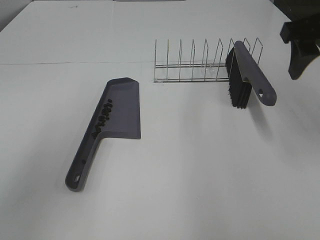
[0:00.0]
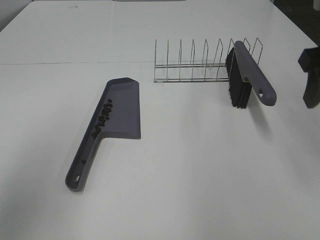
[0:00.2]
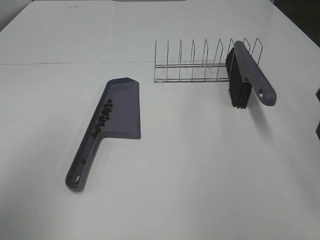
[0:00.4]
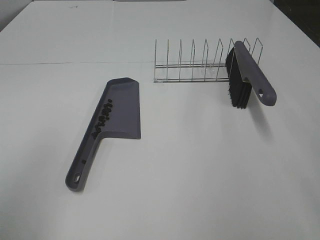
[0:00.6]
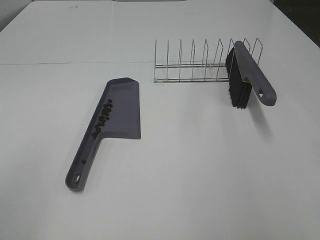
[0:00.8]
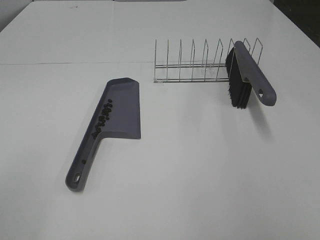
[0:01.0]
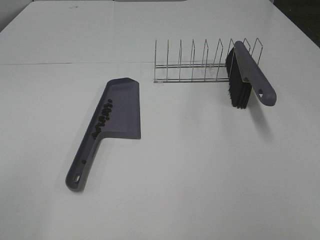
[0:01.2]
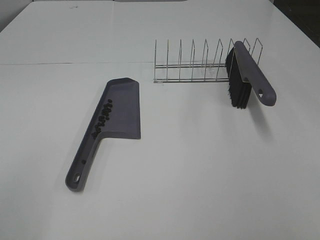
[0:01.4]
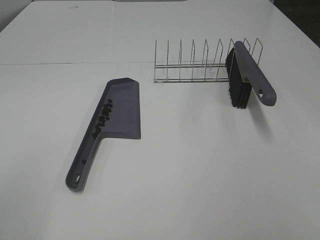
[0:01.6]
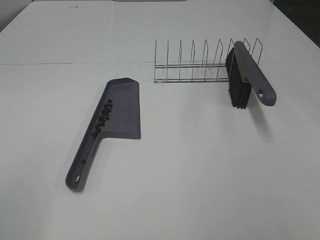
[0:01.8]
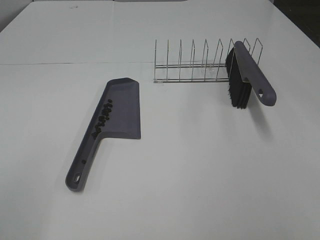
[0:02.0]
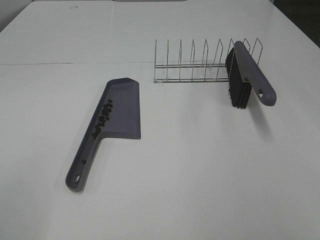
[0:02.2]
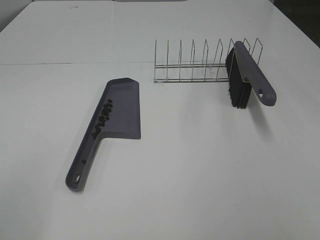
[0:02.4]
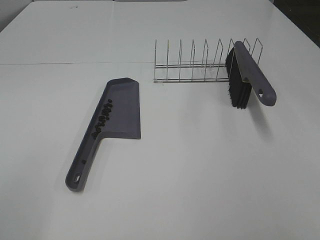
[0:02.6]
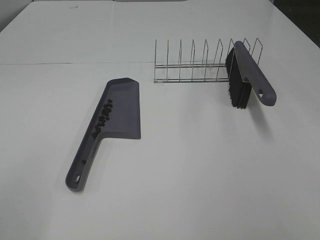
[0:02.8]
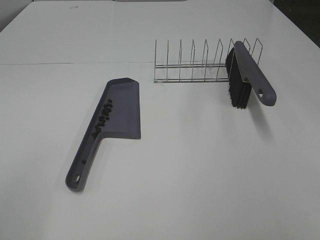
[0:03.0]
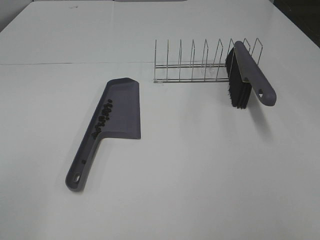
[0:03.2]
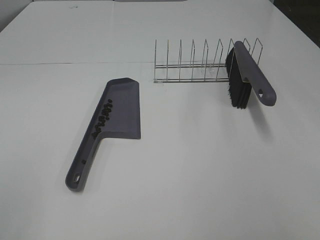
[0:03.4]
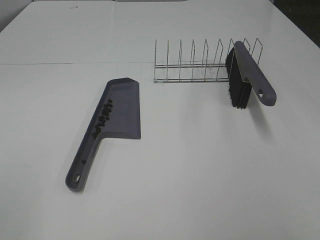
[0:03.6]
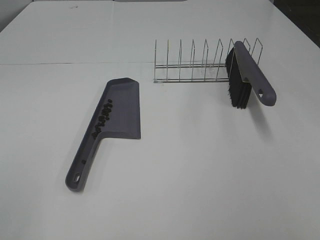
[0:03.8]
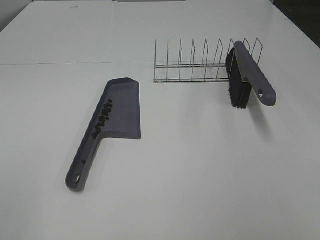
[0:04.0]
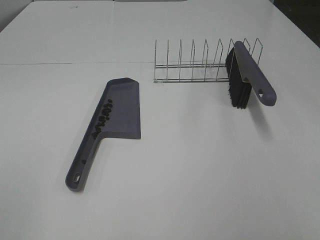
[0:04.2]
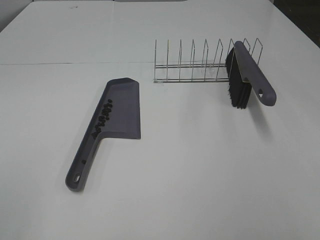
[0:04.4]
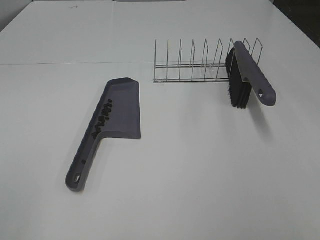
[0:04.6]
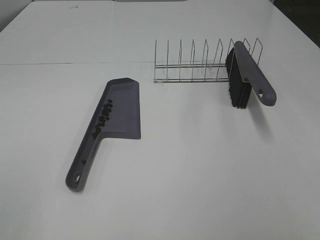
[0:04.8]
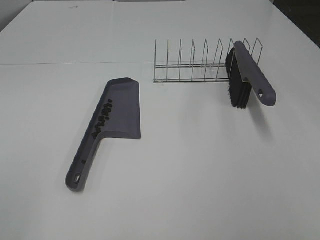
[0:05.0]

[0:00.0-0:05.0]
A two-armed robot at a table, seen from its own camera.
Task of the whole recording: Sweep Coffee Bean.
0:00.0 to 0:01.6: The left gripper travels backward and downward by some 20 cm, while the right gripper shifts some 30 cm backward.
